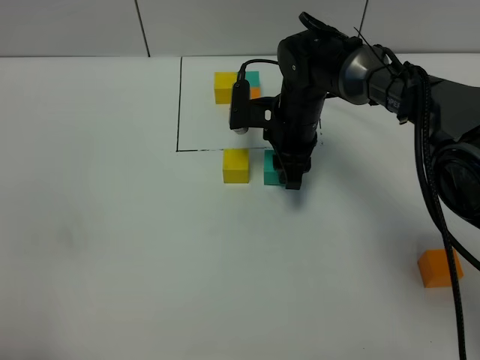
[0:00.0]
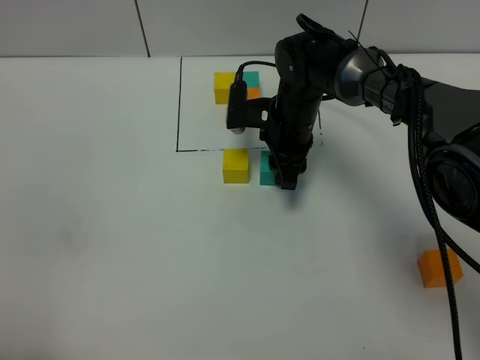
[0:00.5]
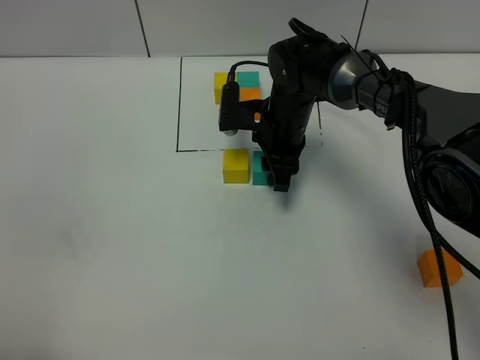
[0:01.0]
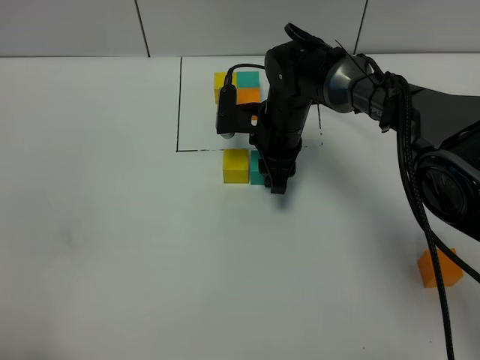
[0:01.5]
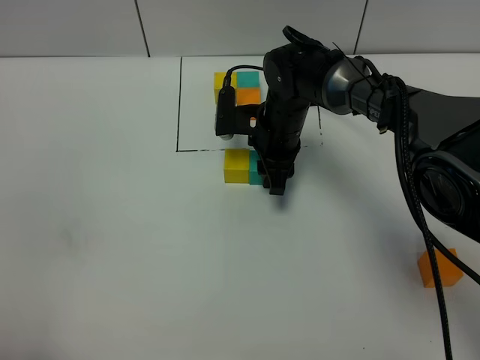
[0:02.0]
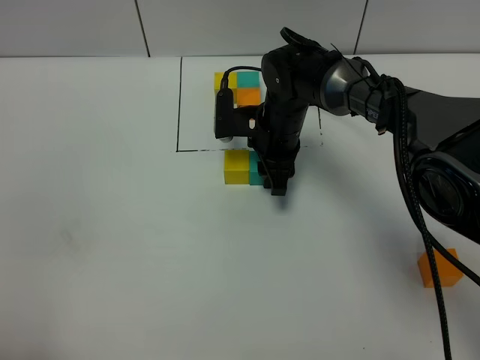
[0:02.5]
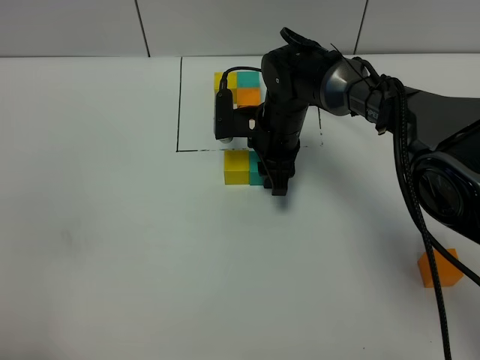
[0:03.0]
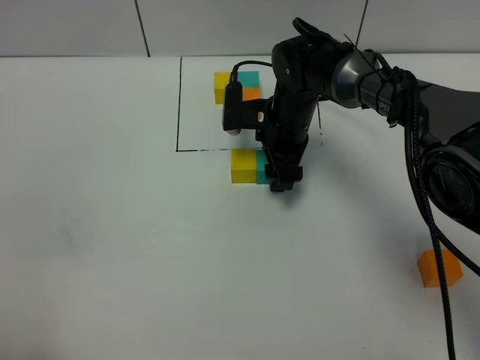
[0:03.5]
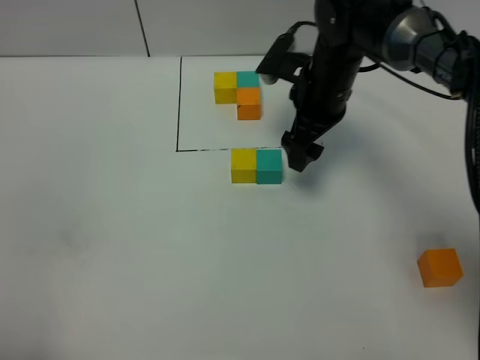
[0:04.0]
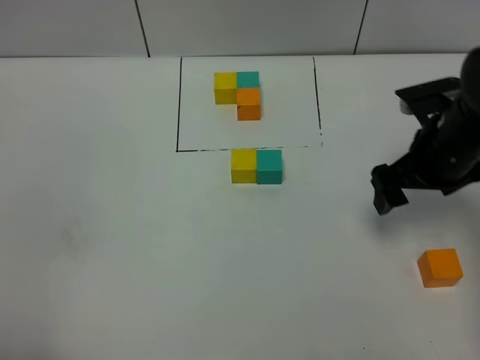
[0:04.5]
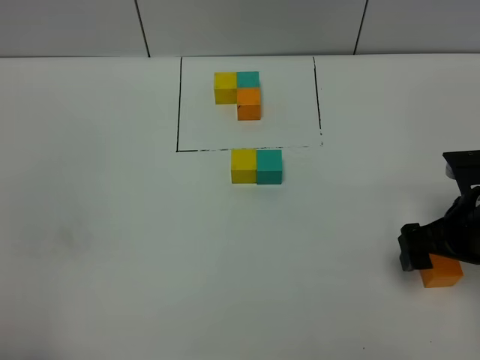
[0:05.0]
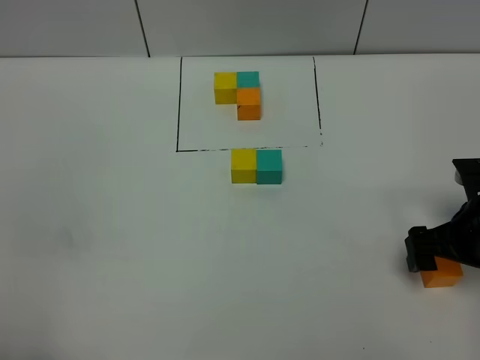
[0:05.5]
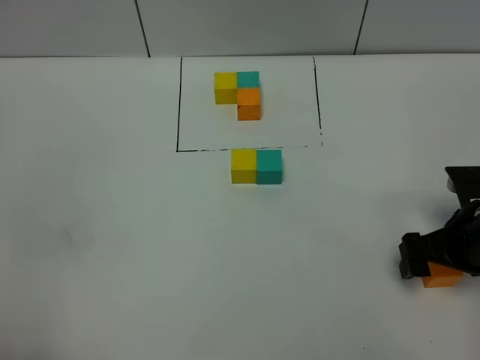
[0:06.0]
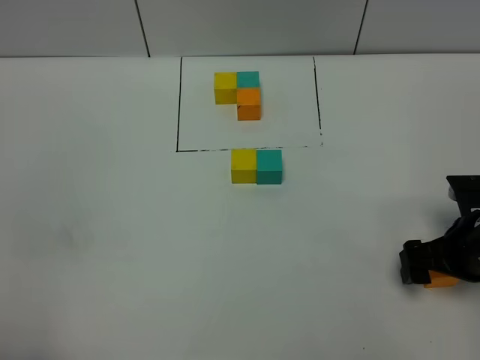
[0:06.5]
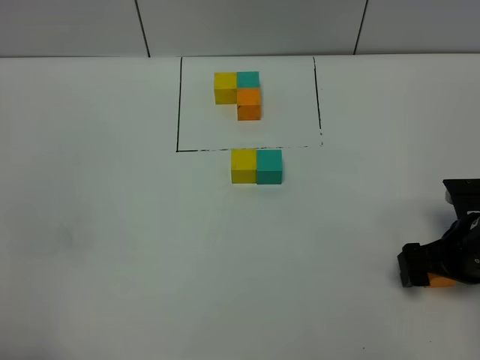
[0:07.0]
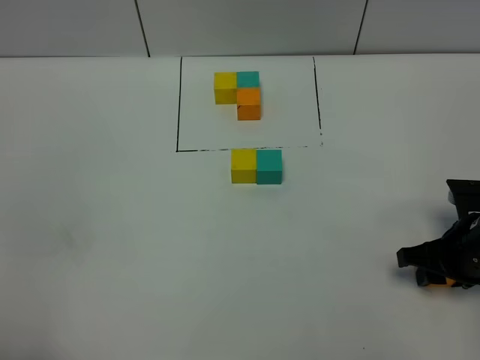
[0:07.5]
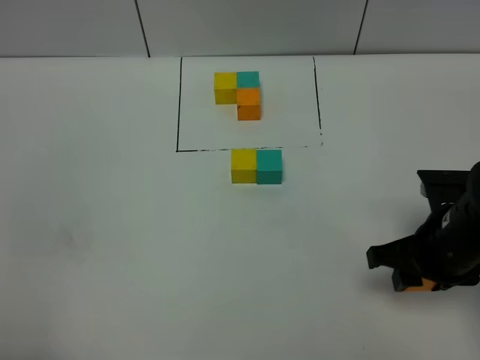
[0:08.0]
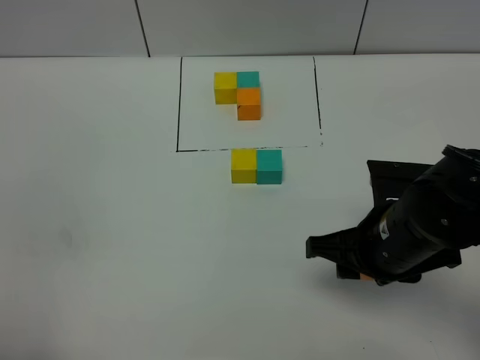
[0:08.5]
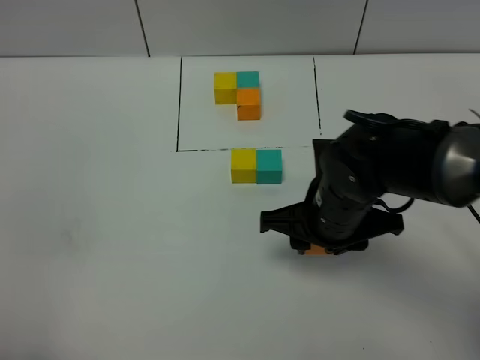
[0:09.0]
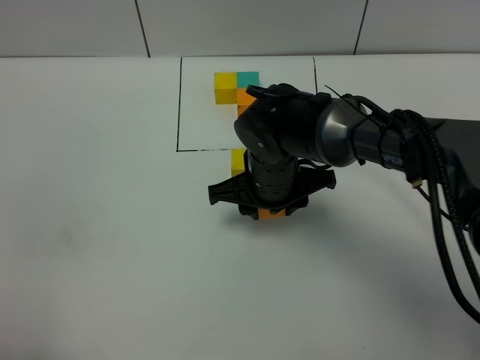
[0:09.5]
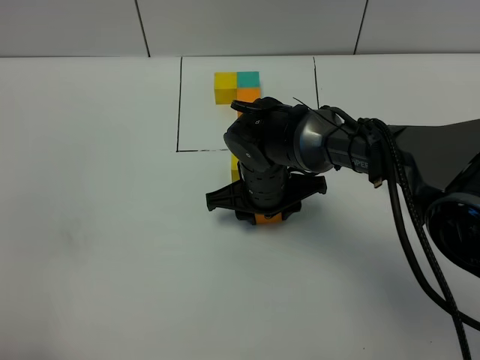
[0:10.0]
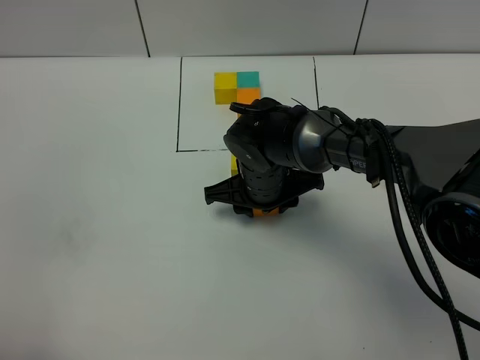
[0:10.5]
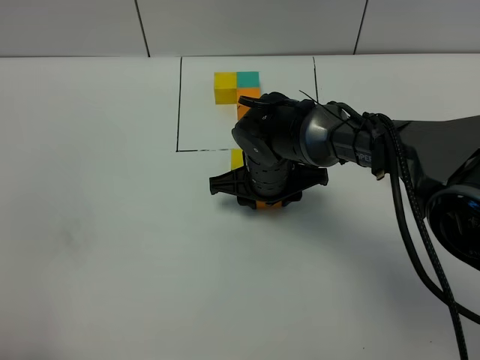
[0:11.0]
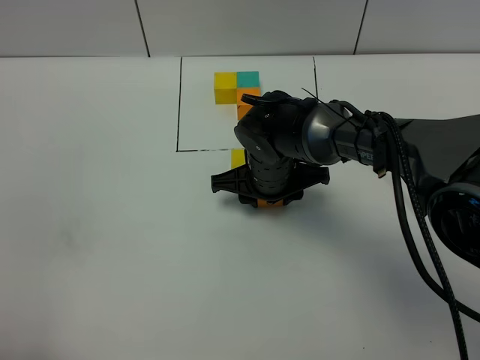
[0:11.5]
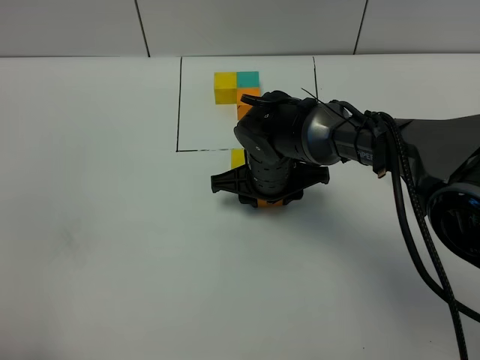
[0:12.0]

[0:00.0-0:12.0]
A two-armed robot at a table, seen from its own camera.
Task of the whole recording: According to the building block template in front, assemble the scattered blocks together.
Step, 0:00.0 to 0:03.0: Put the green build block on the right of the yellow build block.
0:00.0 to 0:02.0: The grippers make only small movements.
0:02.0 to 0:04.0: The right gripper travels upward and to the right by roughly 10 cm, and opens.
0:04.0 to 0:06.0: The right gripper is displaced backward and to the right by some 25 cm.
0:06.0 to 0:08.0: The right gripper shifts approximately 5 cm to the left, and closes.
0:08.0 to 0:10.0: The right gripper heads to the left and forward, covering approximately 25 cm.
0:10.0 to 0:12.0: The grippers stay close to where they were, moving slightly.

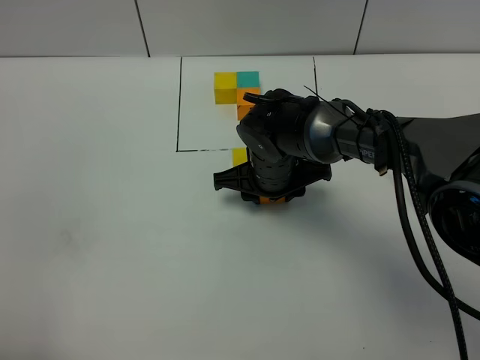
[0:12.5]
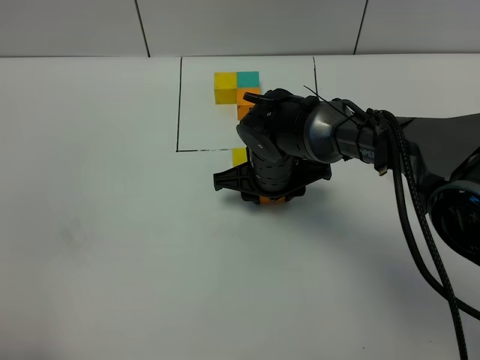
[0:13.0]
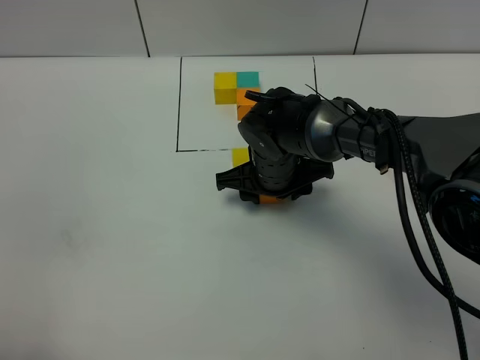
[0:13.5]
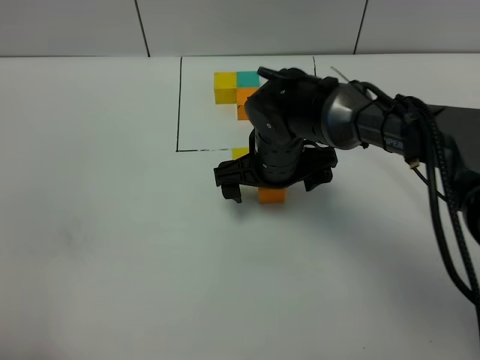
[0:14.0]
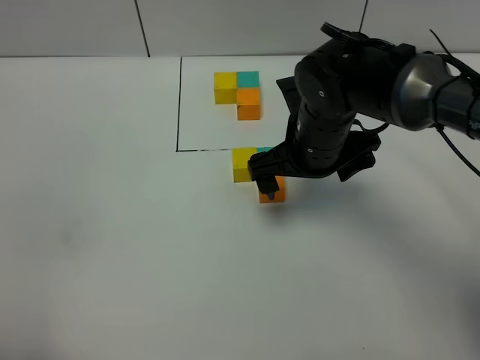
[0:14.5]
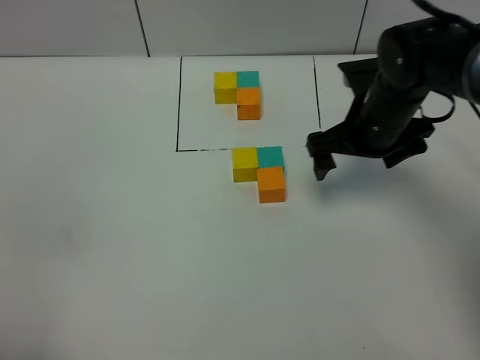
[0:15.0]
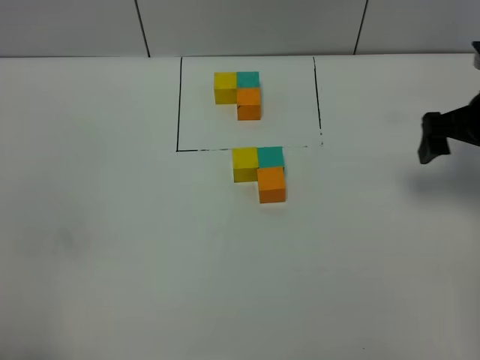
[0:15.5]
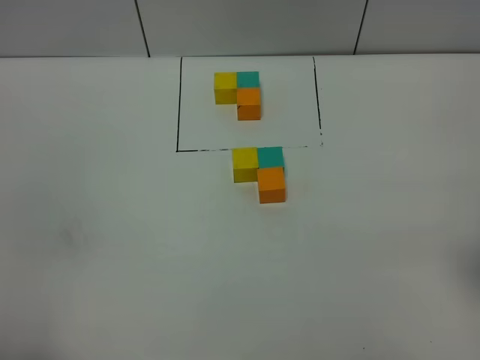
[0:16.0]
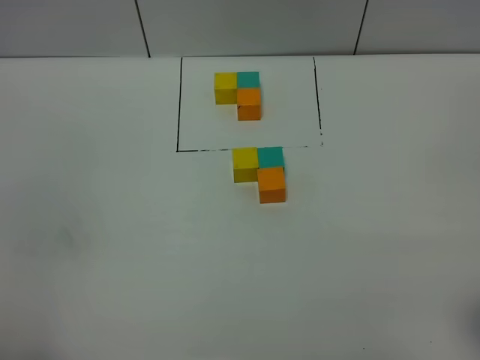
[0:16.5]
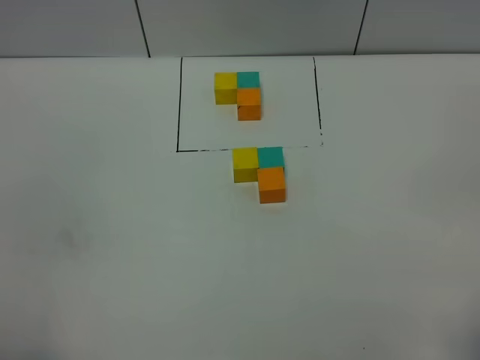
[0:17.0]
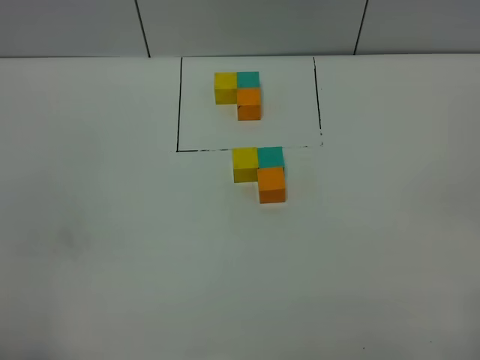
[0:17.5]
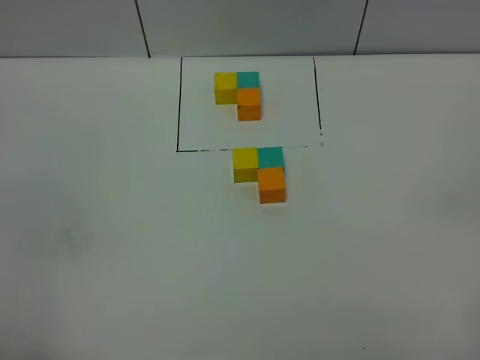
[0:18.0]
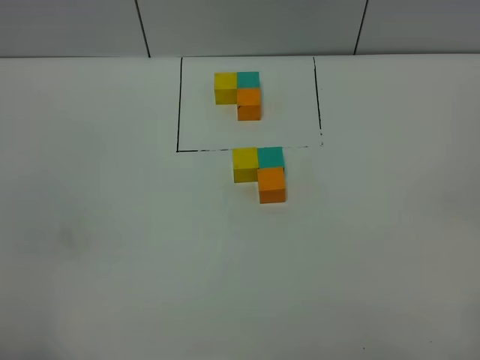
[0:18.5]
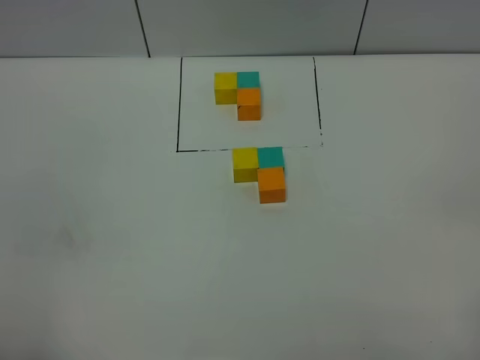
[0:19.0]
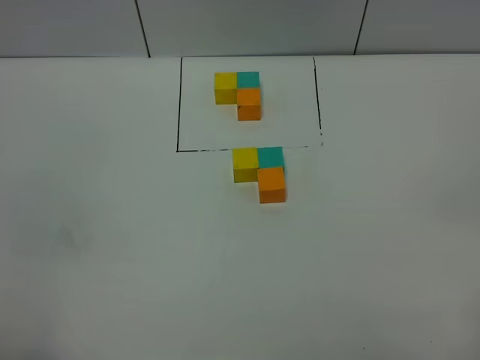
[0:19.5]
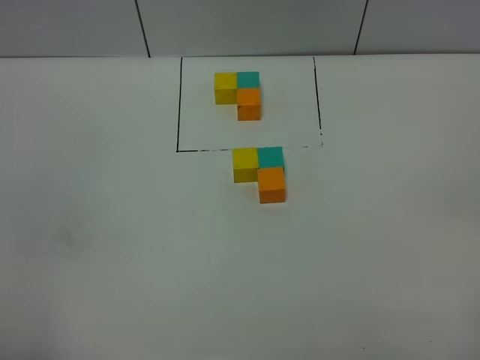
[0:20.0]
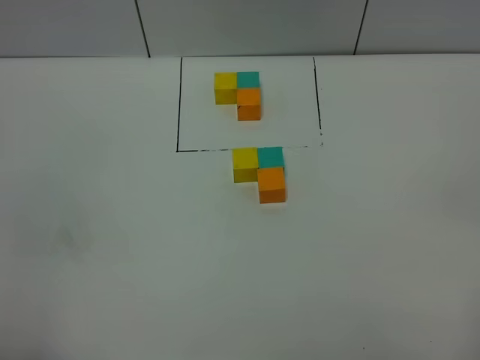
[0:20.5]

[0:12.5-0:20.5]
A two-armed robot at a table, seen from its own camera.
Task of the whole recording: According to the building block template in front, assemble the scattered blocks together.
0:12.5 to 0:14.5: The right gripper travels upward and to the right by approximately 10 cm, and opens its fingers.
0:14.5 to 0:16.5: The right gripper travels backward and to the right by some 30 cm.
